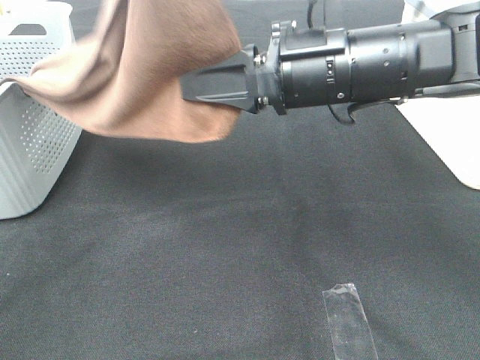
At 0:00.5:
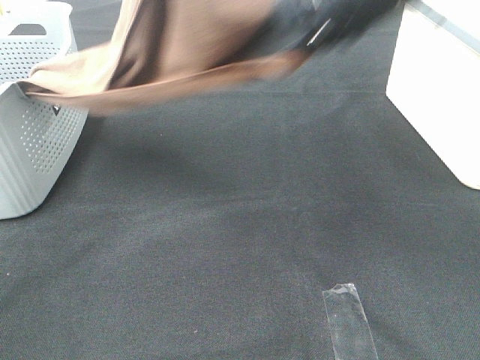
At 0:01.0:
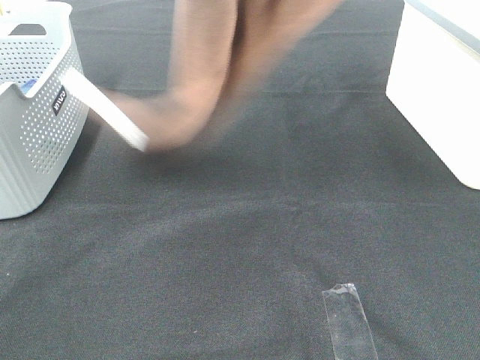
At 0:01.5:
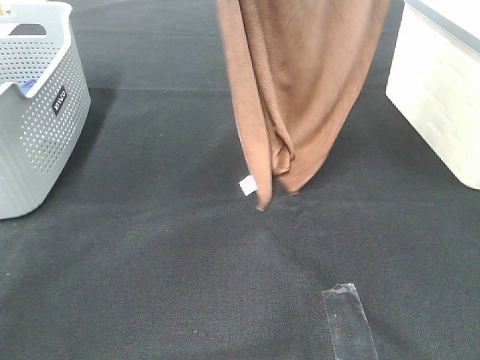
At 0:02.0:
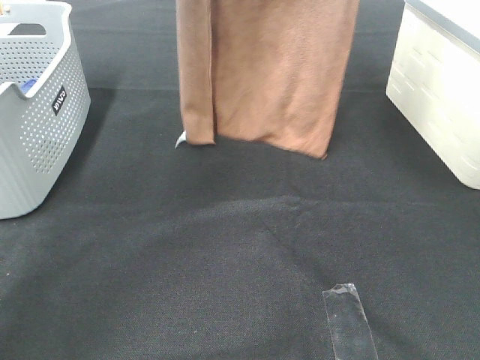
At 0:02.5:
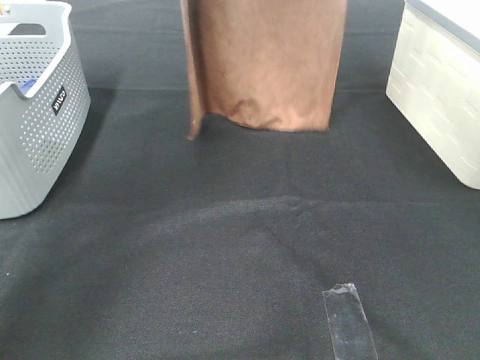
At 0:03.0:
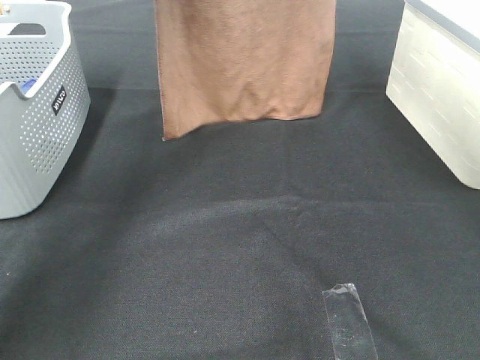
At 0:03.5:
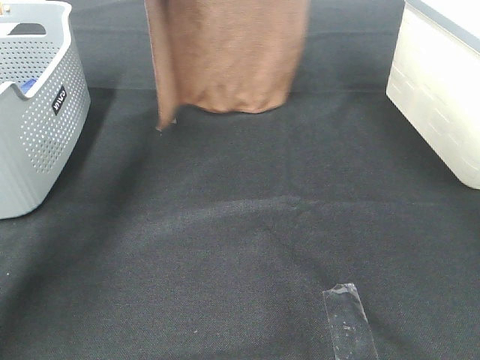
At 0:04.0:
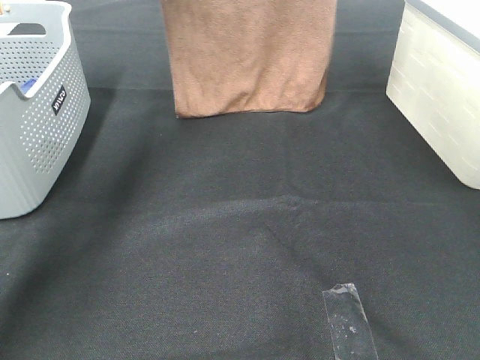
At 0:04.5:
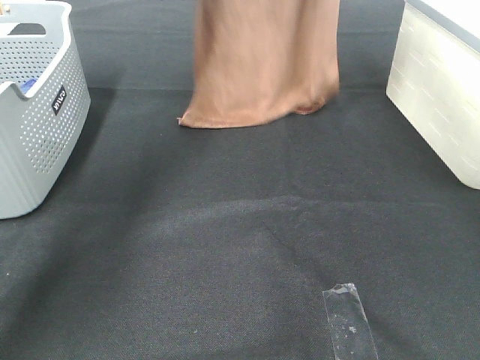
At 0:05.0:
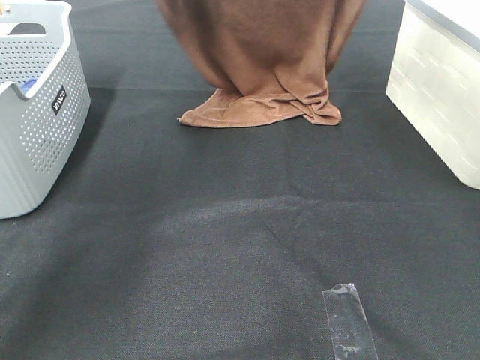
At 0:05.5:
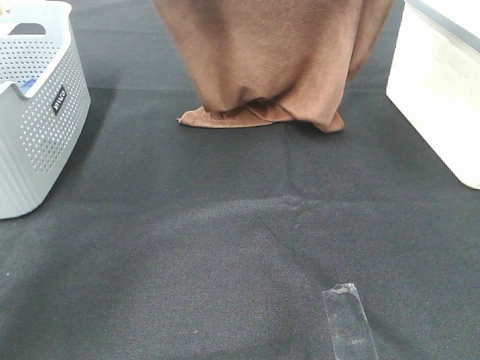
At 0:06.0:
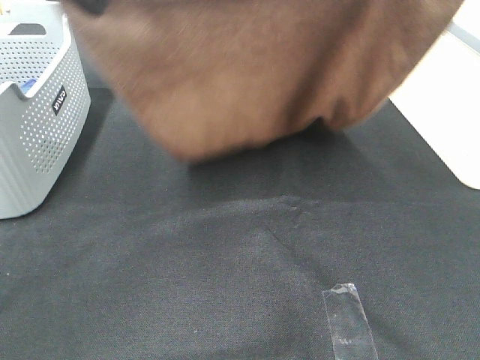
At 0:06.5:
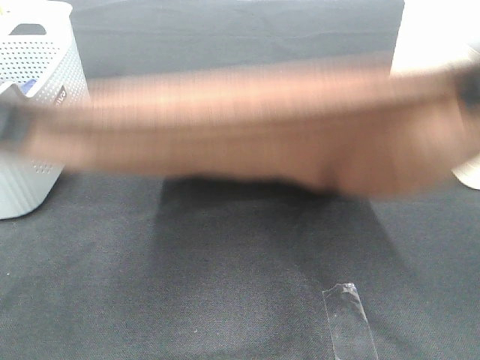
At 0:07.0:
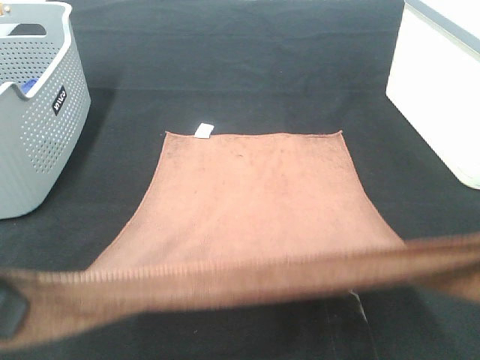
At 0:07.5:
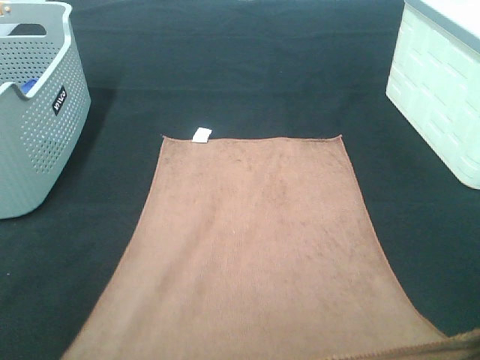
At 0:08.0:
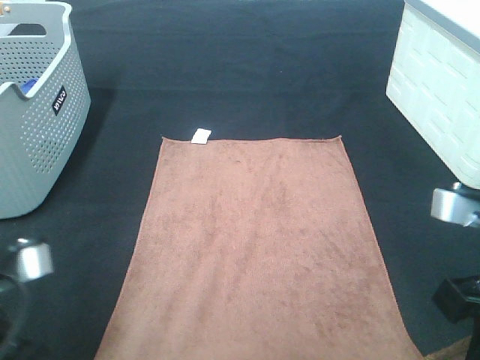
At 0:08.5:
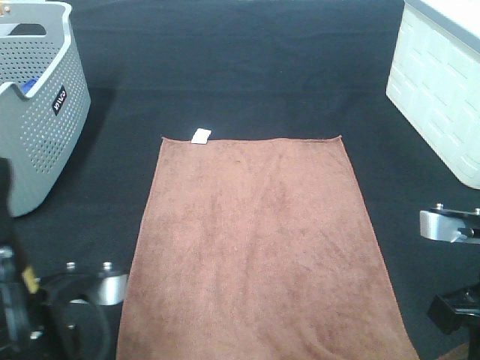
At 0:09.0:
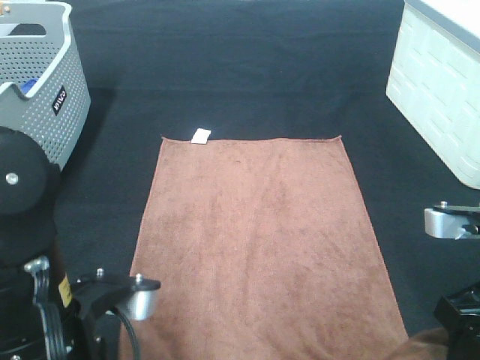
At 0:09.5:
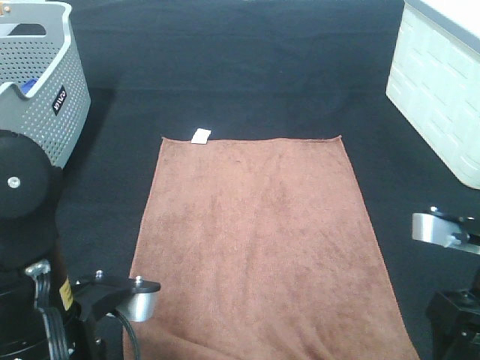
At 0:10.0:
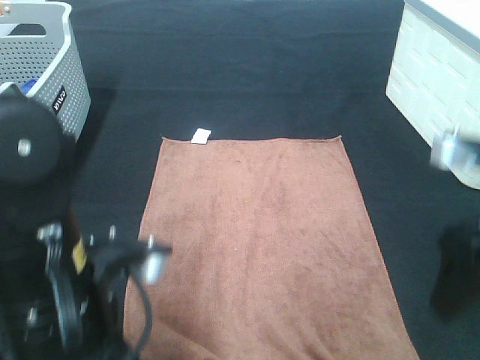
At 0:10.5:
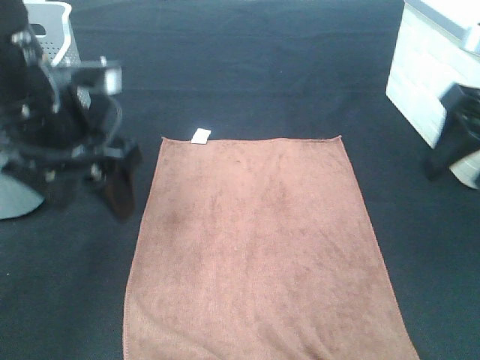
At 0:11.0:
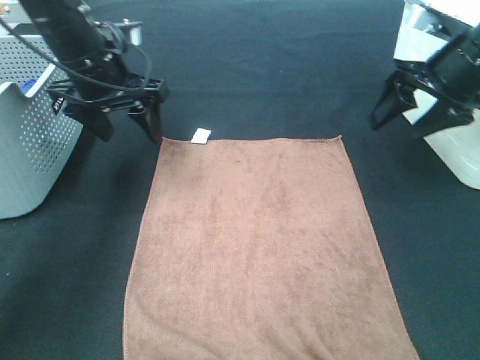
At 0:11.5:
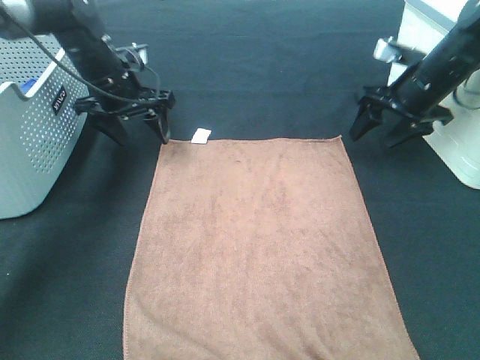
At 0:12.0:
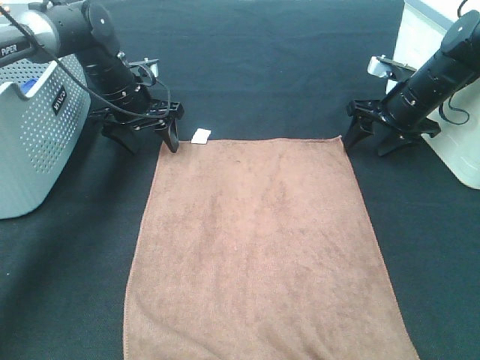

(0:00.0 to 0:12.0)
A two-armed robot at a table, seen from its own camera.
Task of the whole recording: Remove the towel and place it.
Step, 0:01.0 - 0:05.0: Left hand: spread the brown towel flat on the table.
Step, 0:01.0 - 0:05.0: Right hand: spread the brown towel flat on the table.
0:00.0 - 0:02.0: The left gripper travels forward by roughly 15 cm. Meanwhile the right gripper travels upward and forward by roughly 25 cm.
0:02.0 - 0:04.0: The left gripper shifts about 15 cm forward, downward and to the left; the right gripper shifts about 10 cm forward.
0:04.0 - 0:06.0: Both grippers travel together backward, approximately 25 cm.
0:06.0 - 0:08.0: Both grippers travel together downward and backward, some 25 cm.
0:08.0 - 0:10.0: The right gripper ends up some 5 cm from where it was, and opens; the left gripper heads to the right, covering roughly 10 cm, and opens up.
0:10.0 - 0:12.0: The right gripper travels forward and downward by some 30 cm; the left gripper goes approximately 35 cm forward.

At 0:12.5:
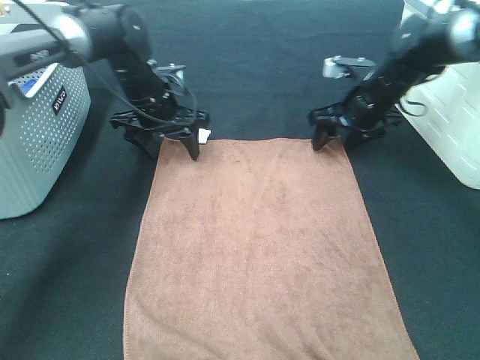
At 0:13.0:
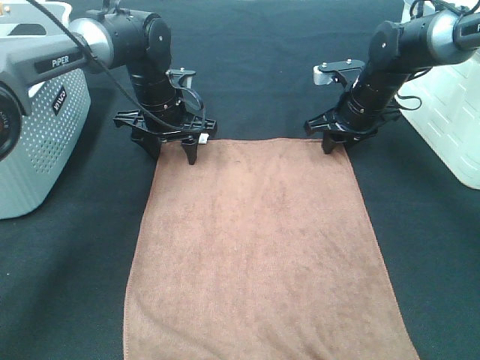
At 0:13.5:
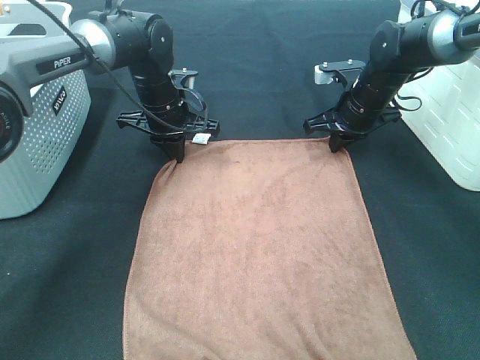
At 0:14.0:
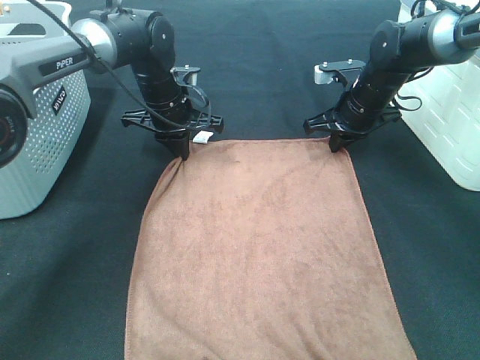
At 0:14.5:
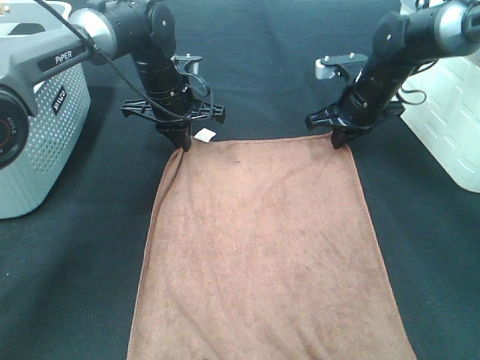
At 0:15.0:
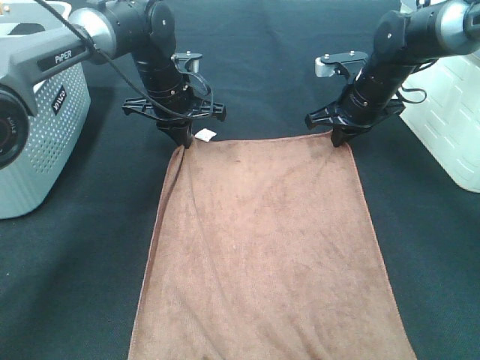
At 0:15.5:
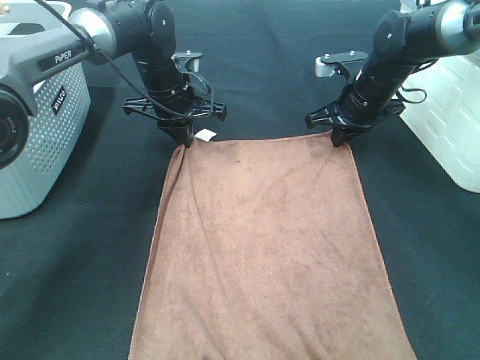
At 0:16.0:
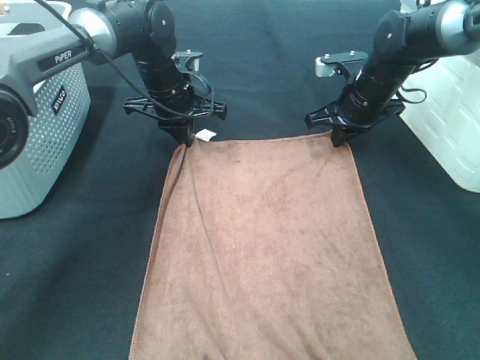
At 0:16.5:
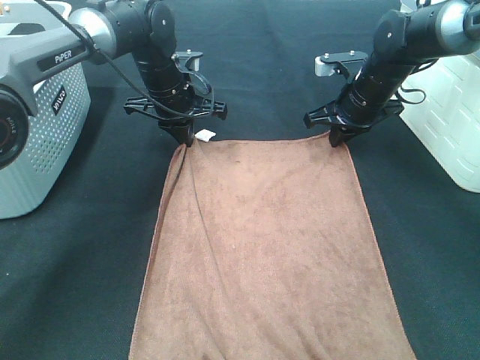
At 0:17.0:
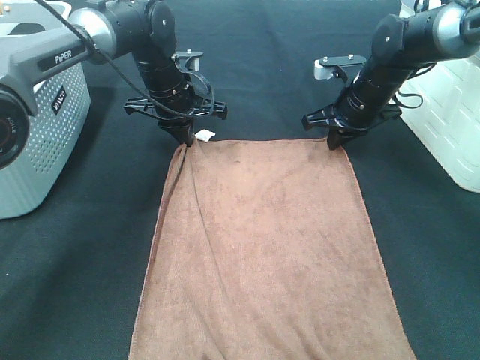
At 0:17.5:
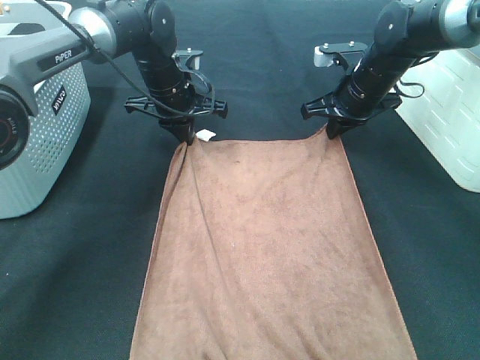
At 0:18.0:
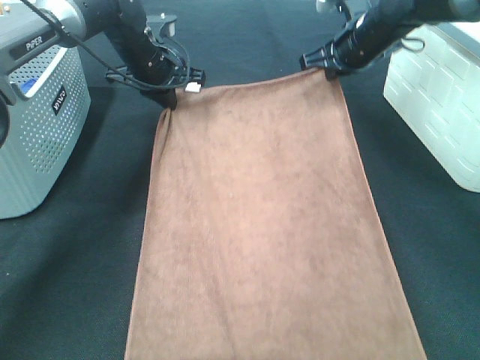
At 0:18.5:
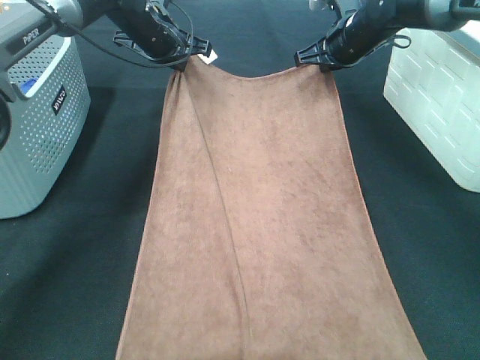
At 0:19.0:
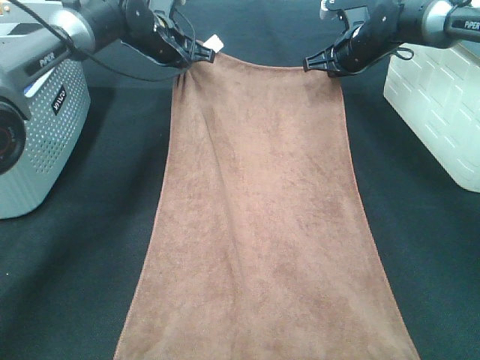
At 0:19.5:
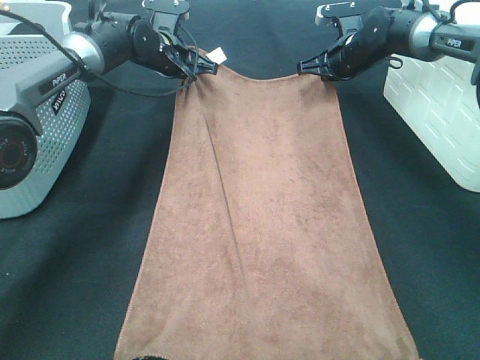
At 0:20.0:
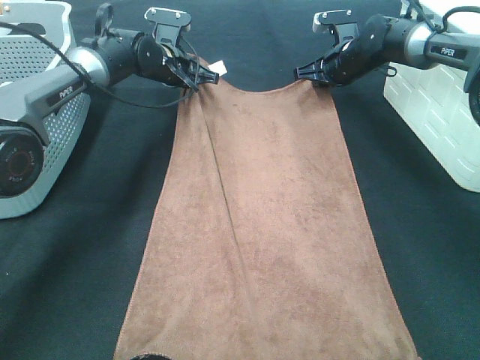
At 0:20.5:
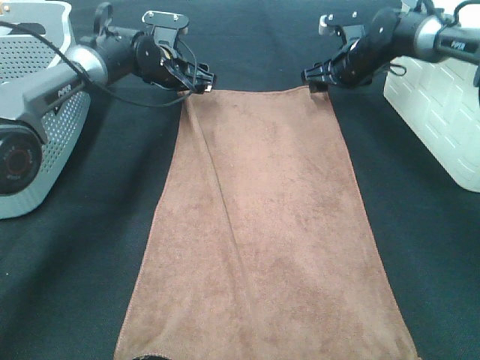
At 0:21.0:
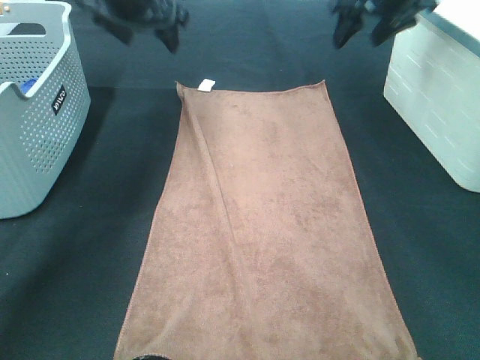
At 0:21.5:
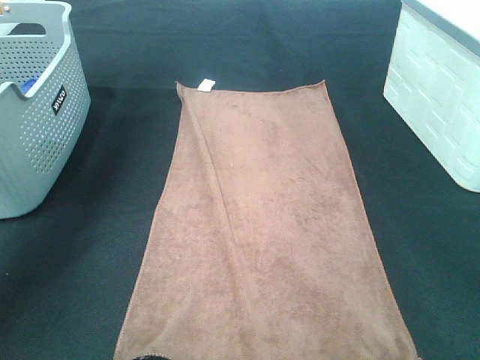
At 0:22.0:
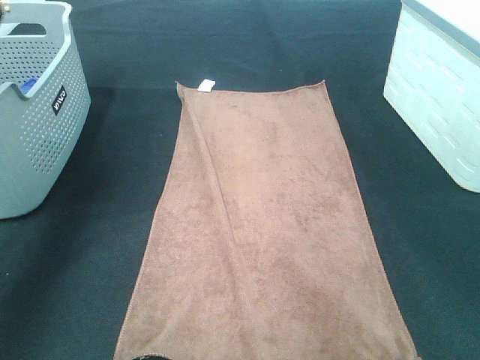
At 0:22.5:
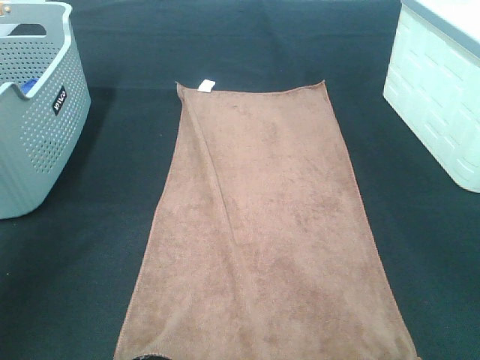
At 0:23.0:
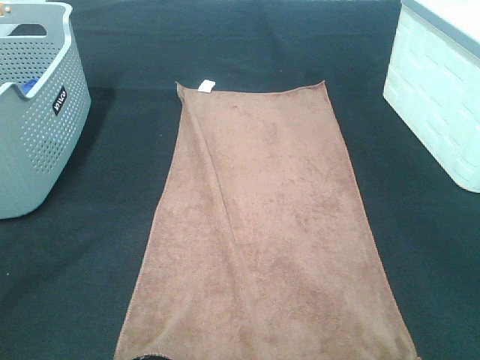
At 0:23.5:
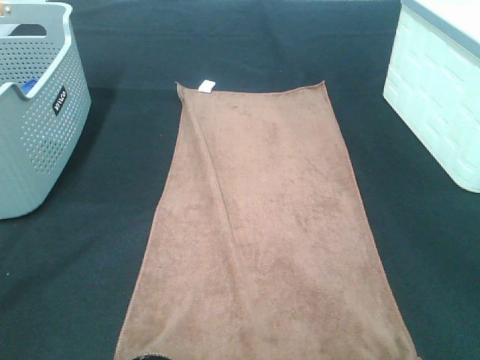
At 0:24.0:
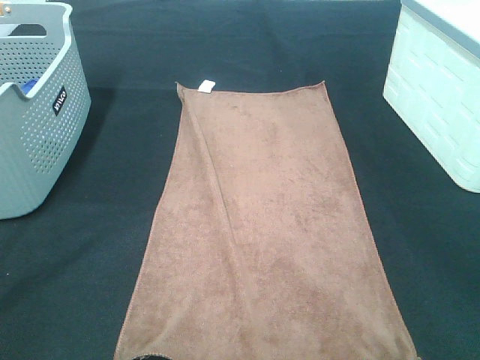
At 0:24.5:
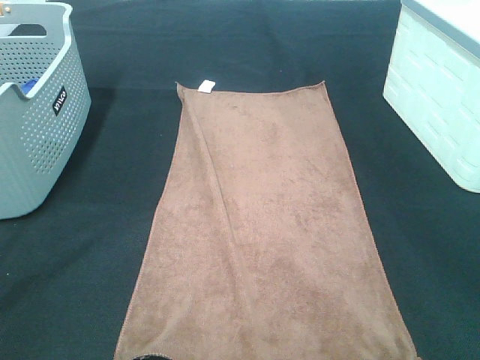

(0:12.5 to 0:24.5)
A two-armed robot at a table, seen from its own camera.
Task of the whole recording: Remove the towel and place it.
0:12.5 - 0:14.5: The right gripper closes. Meanwhile the left gripper closes its fingers.
0:14.5 - 0:16.5: Both grippers stay about where they are.
0:16.5 - 0:18.5: The right gripper moves forward and upward, about 10 cm. The left gripper moves upward and forward, roughly 10 cm.
0:18.5 - 0:20.5: The right gripper shifts by some 5 cm, and opens, while the left gripper shifts approximately 5 cm downward, and opens up.
0:20.5 - 0:22.5: The grippers both shift backward and upward by about 50 cm.

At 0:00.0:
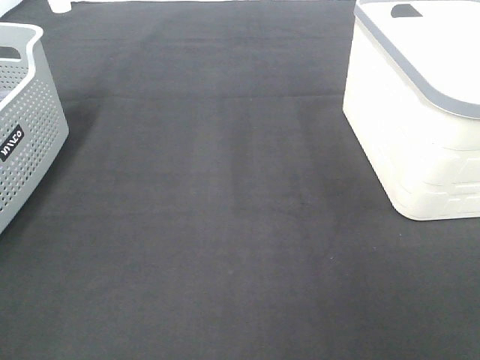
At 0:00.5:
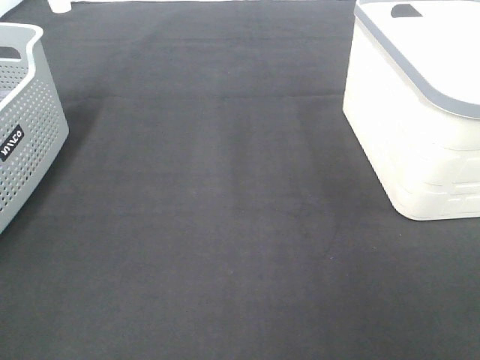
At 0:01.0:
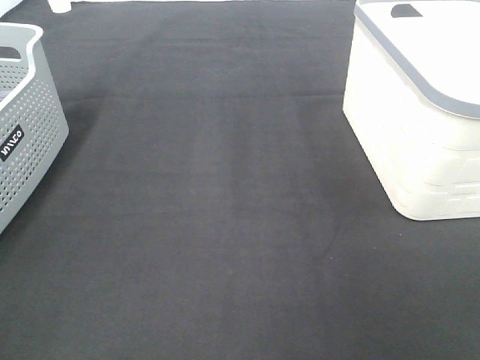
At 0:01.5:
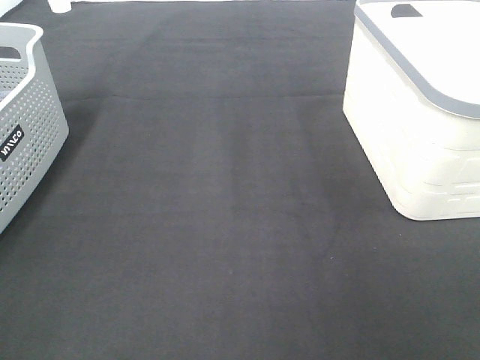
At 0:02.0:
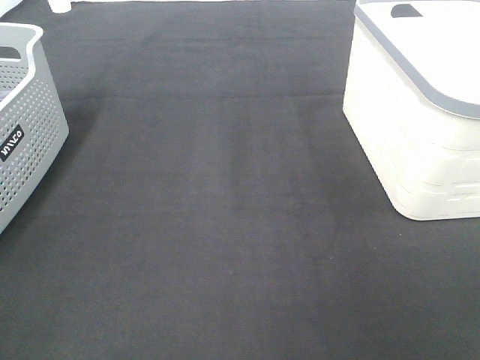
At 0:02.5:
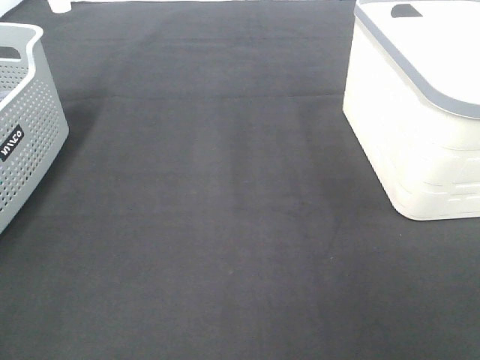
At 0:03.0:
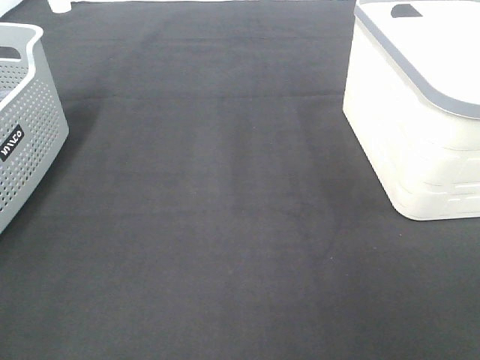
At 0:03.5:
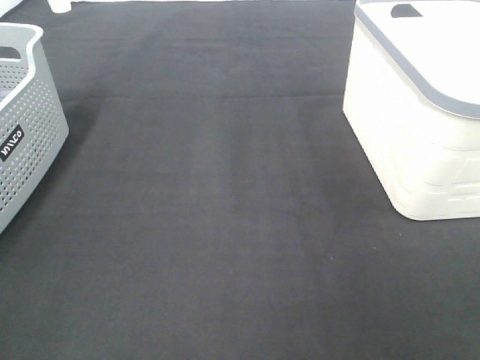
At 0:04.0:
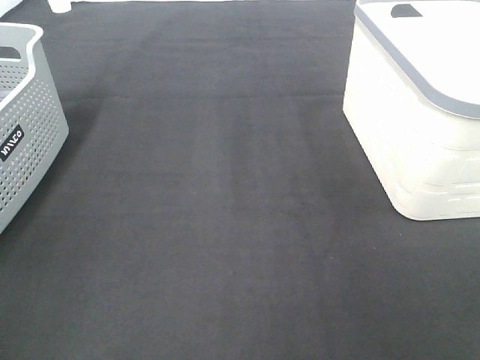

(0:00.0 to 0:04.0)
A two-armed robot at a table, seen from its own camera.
Task of the whole recording: Remove the towel and place it.
0:00.0 - 0:02.0: Both grippers stay put.
